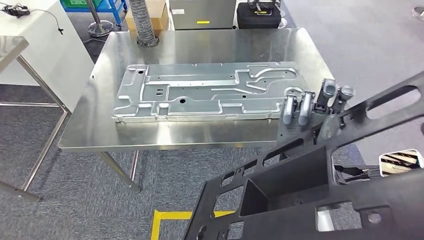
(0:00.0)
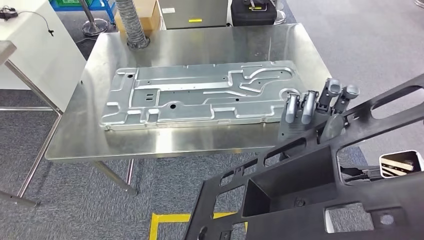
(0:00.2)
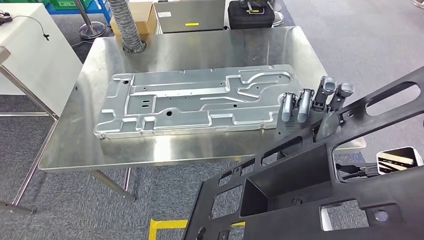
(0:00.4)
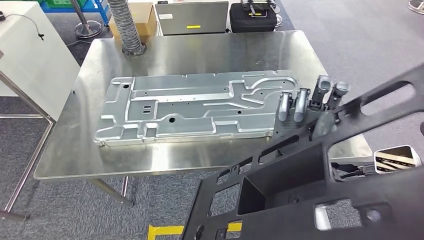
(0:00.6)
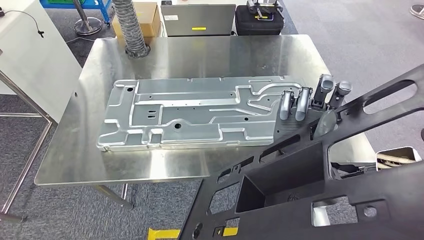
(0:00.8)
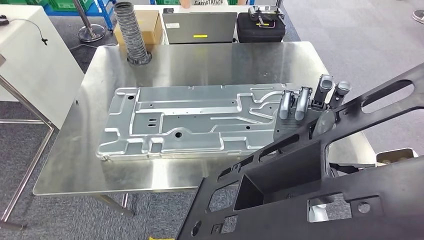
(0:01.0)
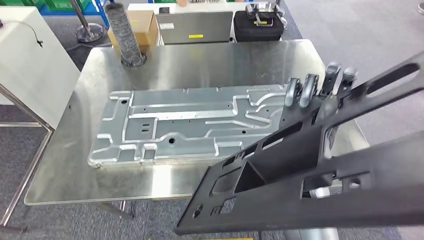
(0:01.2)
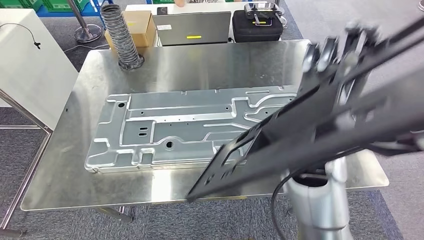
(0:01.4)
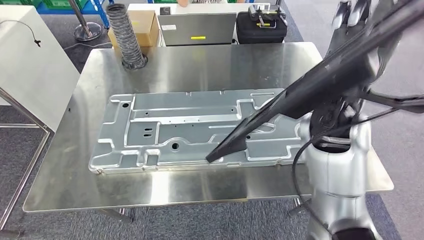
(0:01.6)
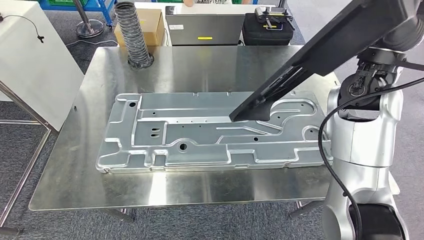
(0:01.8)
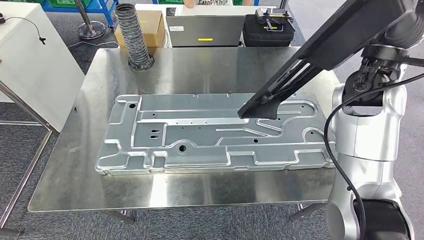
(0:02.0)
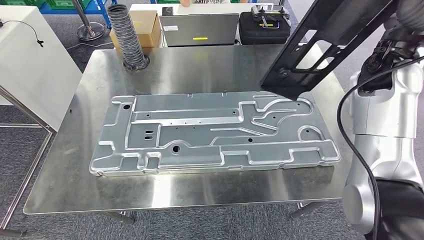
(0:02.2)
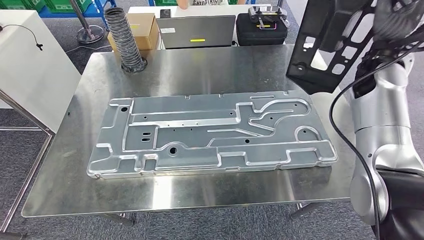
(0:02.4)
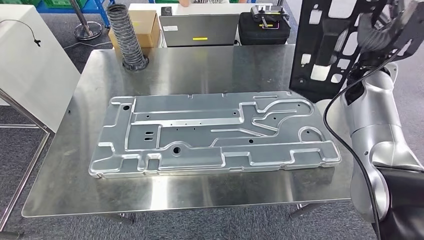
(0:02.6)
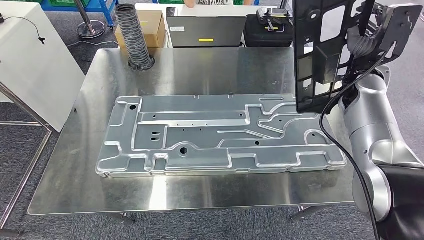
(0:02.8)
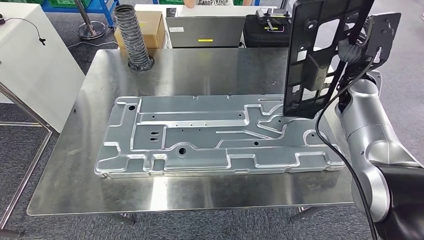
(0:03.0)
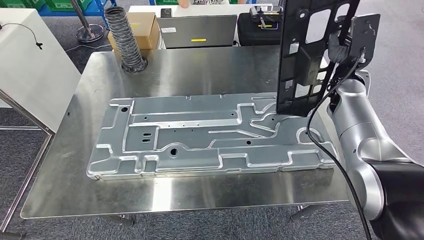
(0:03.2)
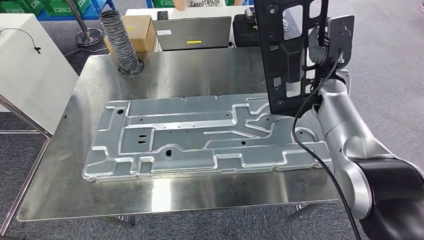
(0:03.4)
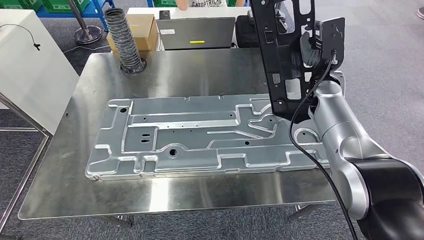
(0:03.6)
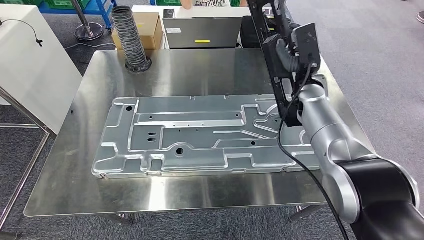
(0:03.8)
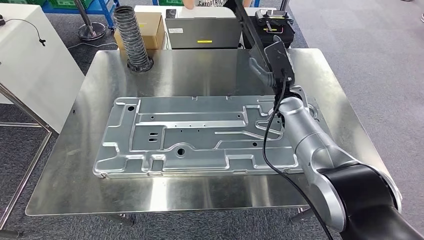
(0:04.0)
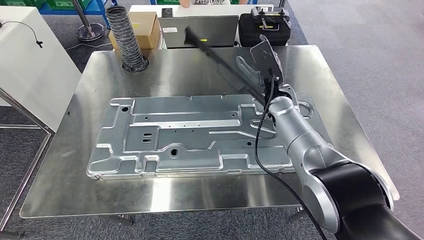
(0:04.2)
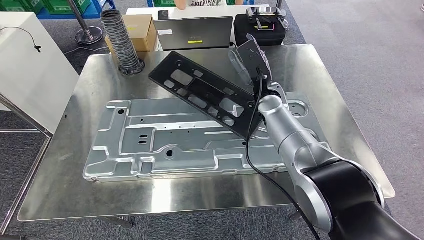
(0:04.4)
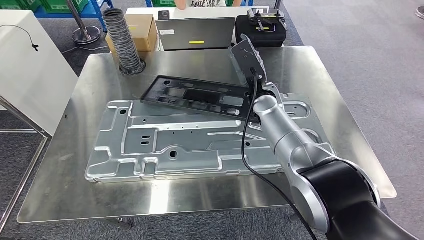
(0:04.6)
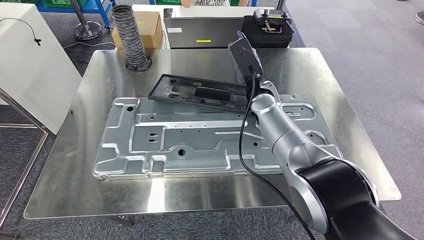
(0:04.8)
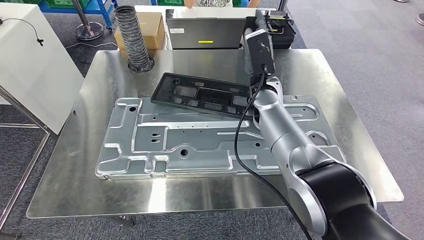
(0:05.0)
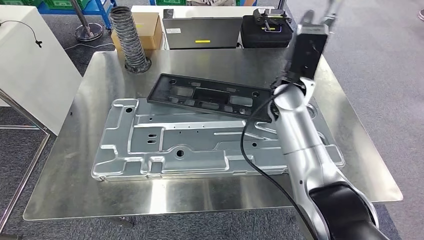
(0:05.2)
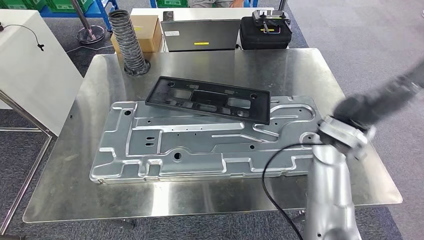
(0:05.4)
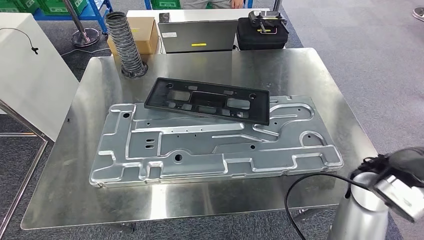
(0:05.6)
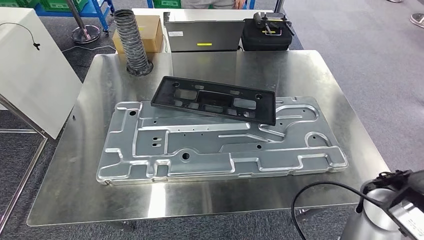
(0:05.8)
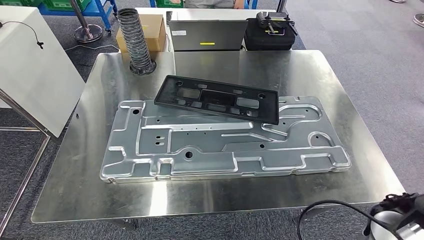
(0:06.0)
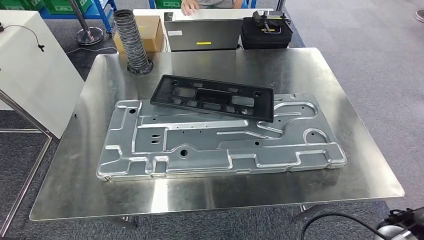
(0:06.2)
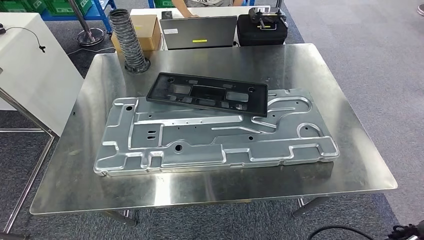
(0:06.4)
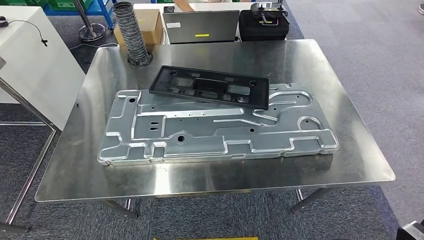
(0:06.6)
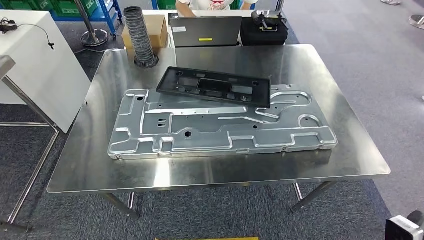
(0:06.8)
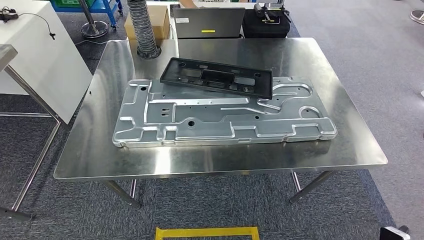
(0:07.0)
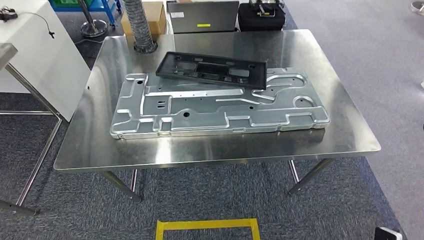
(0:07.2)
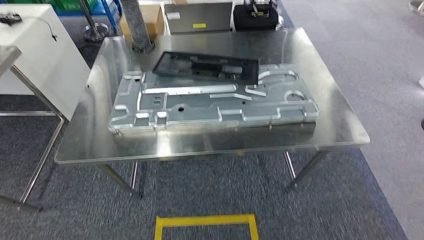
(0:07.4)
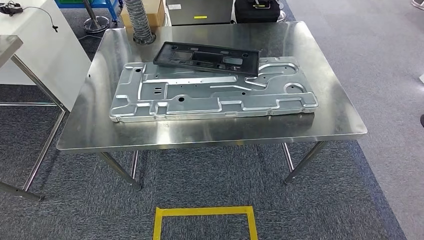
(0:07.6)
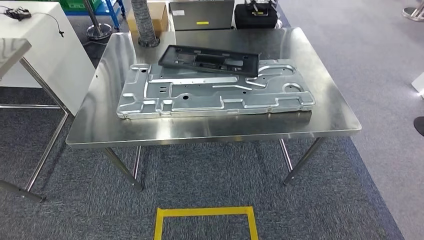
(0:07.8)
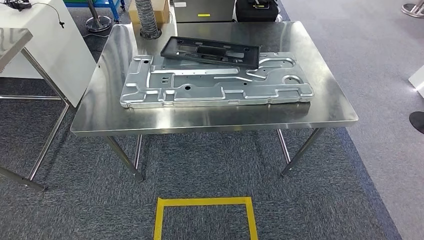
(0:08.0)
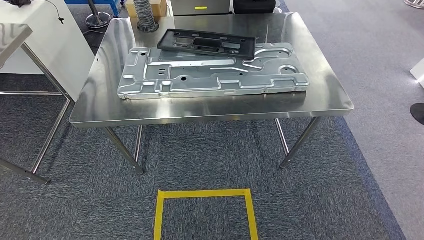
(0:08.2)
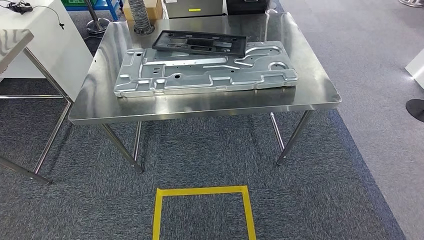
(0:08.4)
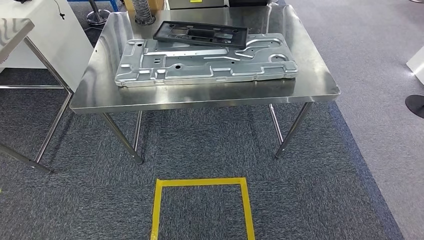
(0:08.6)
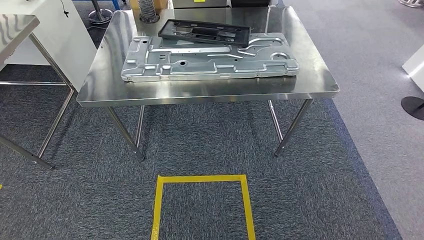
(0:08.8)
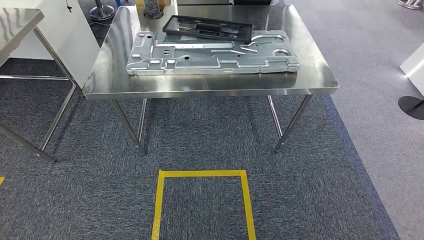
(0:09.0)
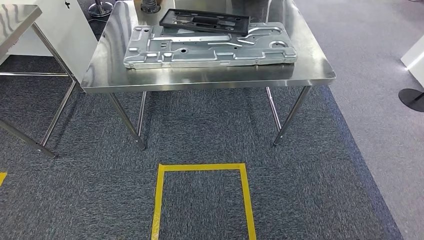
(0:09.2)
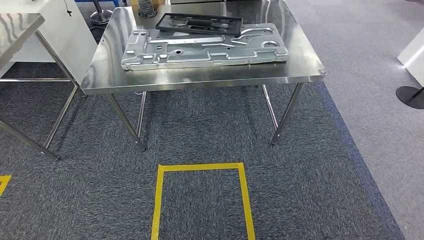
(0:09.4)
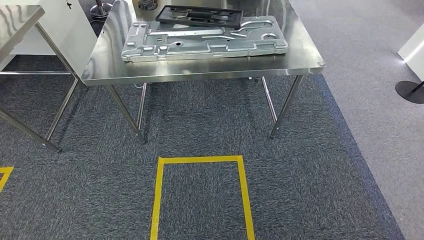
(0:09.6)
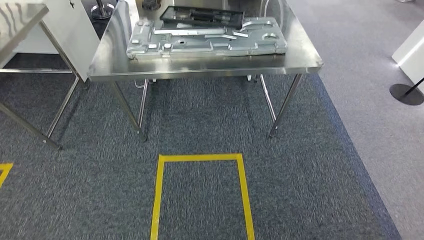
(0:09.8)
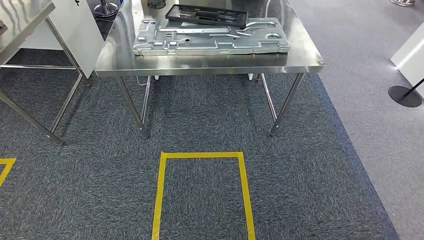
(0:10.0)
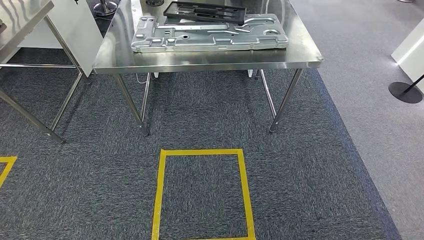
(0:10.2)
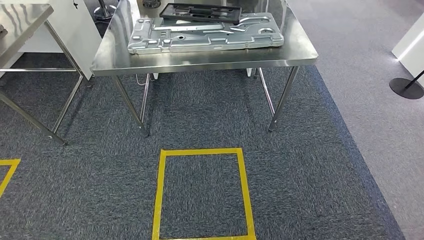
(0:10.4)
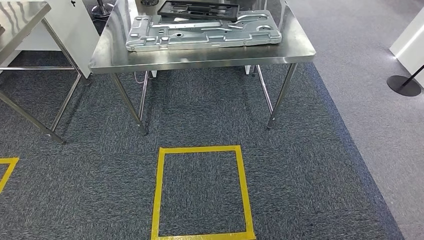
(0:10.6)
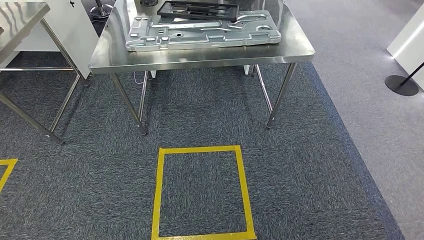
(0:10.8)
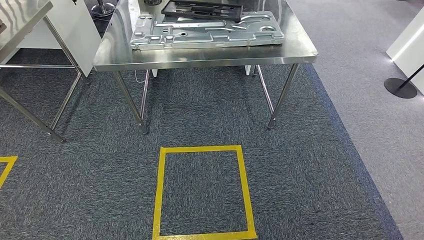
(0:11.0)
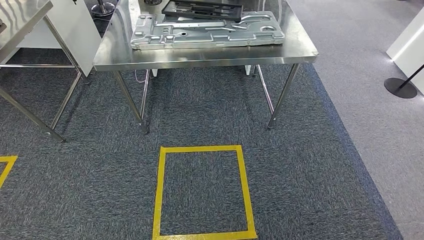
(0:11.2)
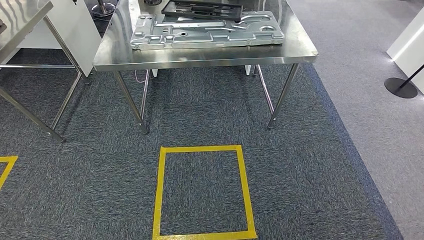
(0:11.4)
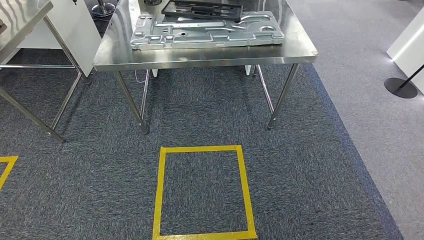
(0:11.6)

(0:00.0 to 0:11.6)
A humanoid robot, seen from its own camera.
Step, 0:00.0 - 0:05.4: Insert the large parts into the corresponding slots on the workbench.
Step, 0:05.6 - 0:11.6: Return to the initial position at the shelf.
0:10.2 - 0:11.6: The hands make only small movements.
